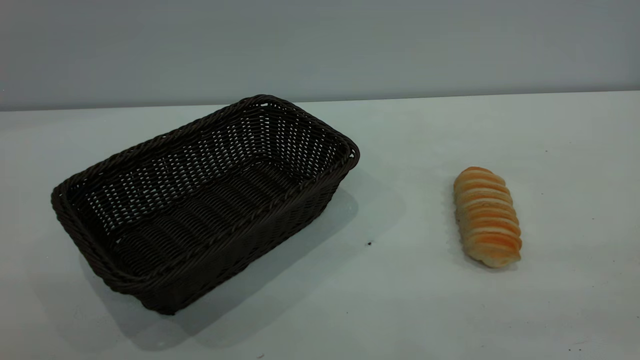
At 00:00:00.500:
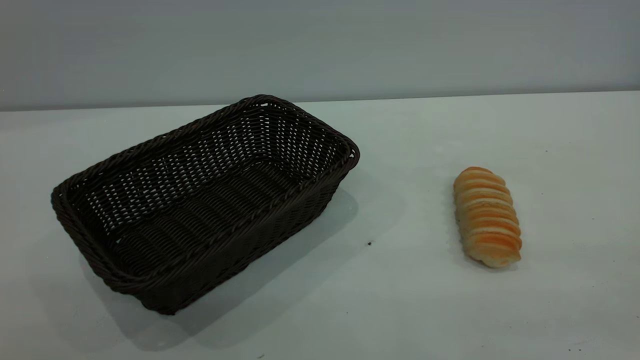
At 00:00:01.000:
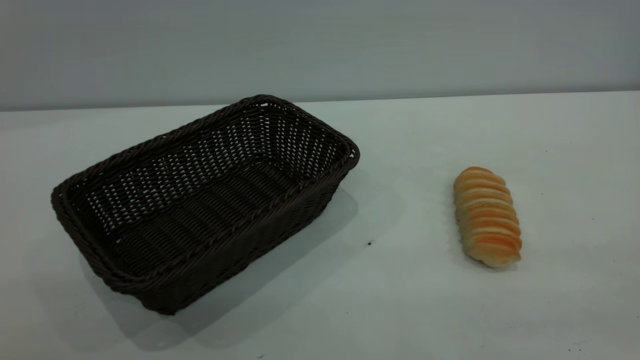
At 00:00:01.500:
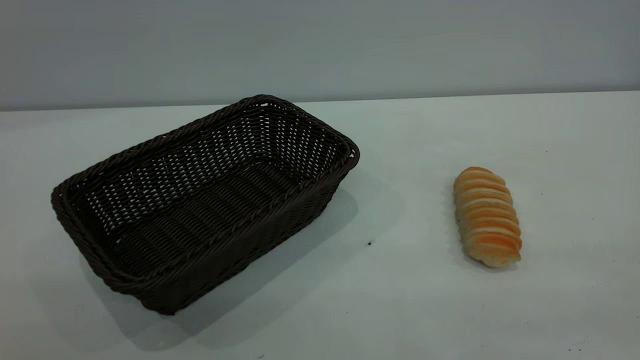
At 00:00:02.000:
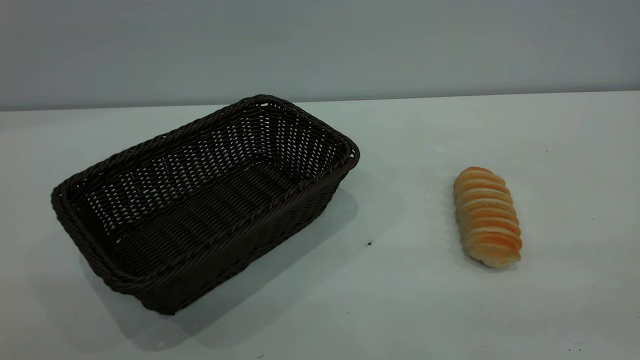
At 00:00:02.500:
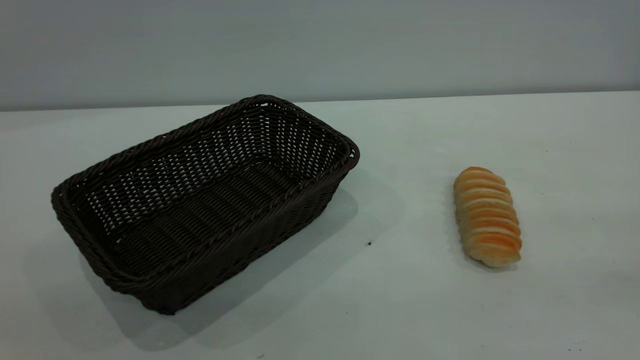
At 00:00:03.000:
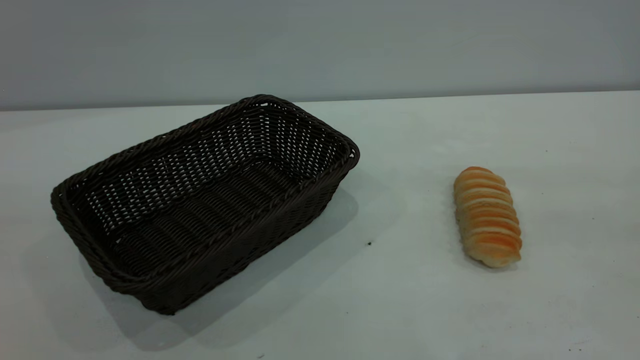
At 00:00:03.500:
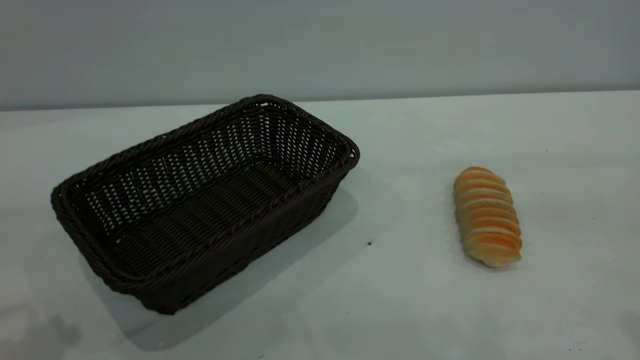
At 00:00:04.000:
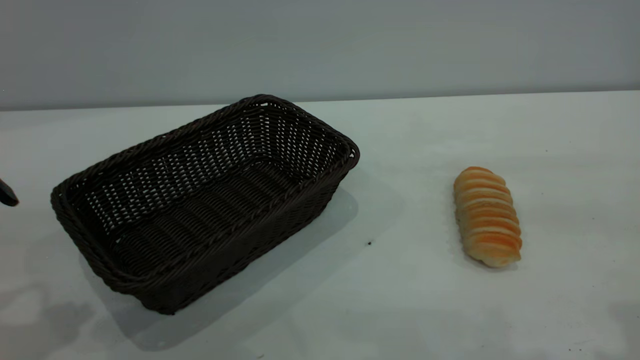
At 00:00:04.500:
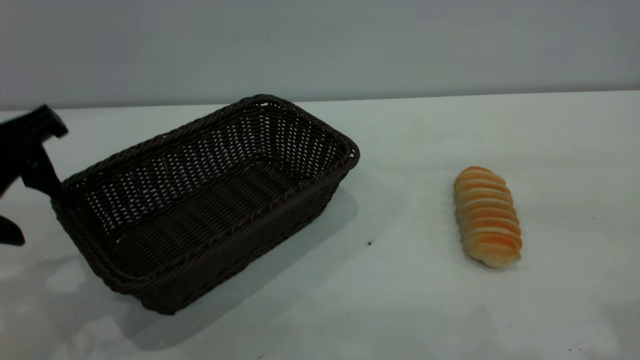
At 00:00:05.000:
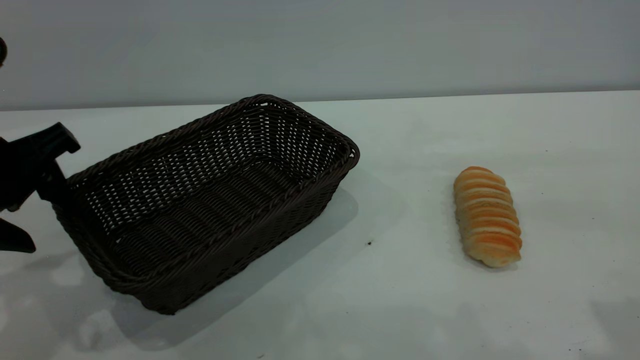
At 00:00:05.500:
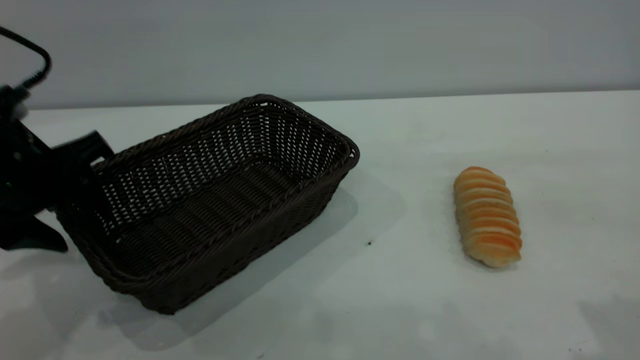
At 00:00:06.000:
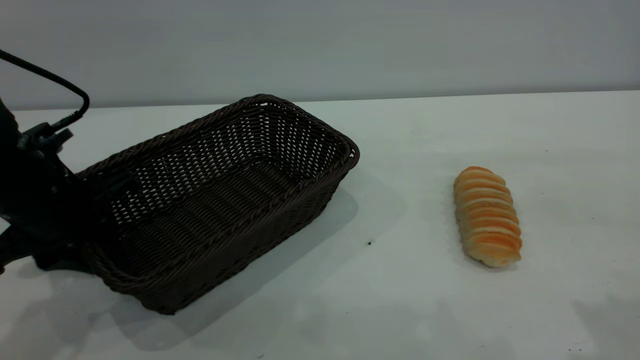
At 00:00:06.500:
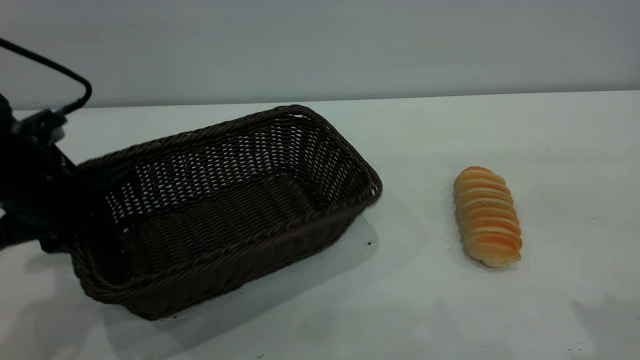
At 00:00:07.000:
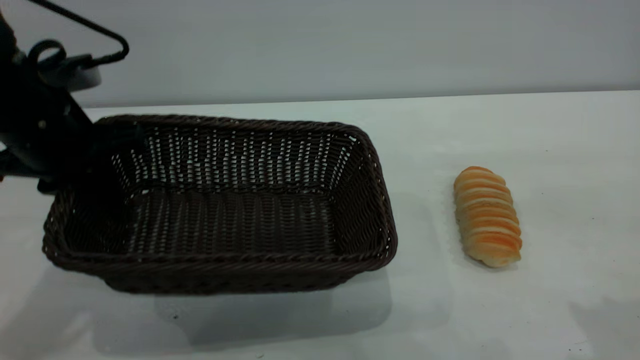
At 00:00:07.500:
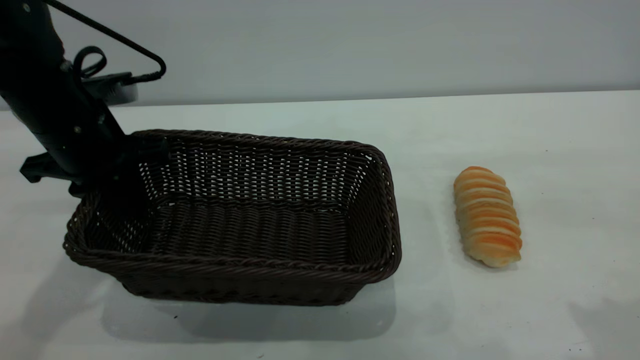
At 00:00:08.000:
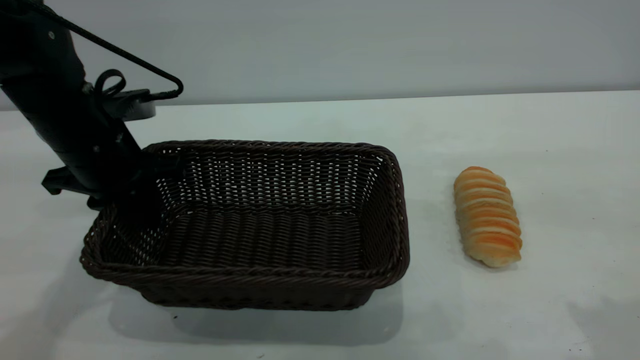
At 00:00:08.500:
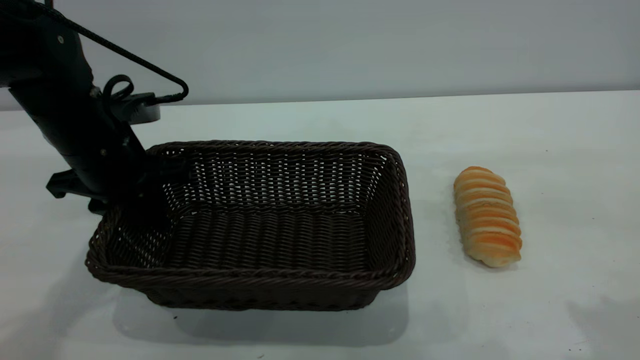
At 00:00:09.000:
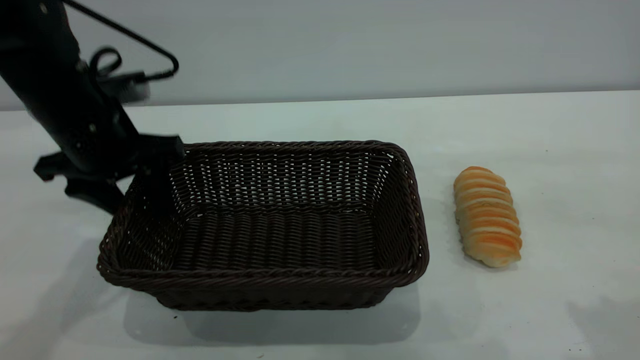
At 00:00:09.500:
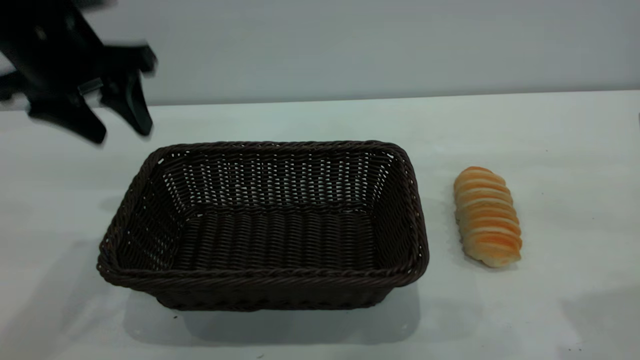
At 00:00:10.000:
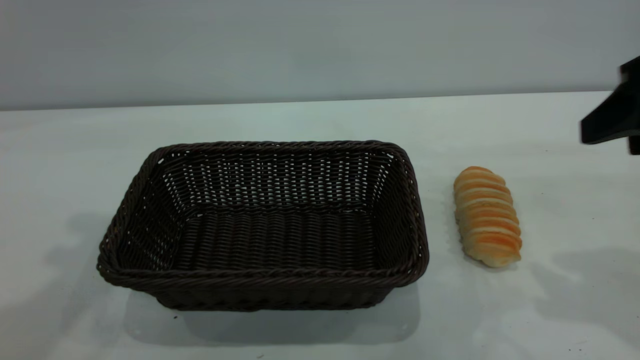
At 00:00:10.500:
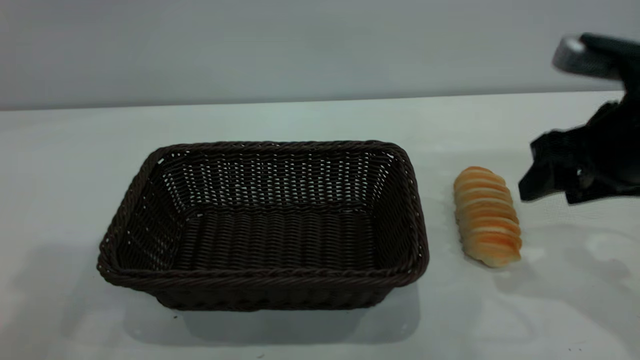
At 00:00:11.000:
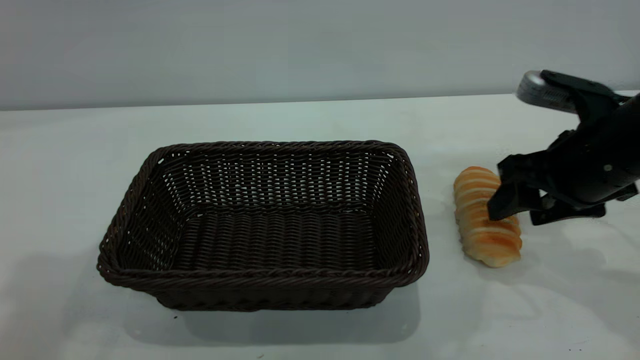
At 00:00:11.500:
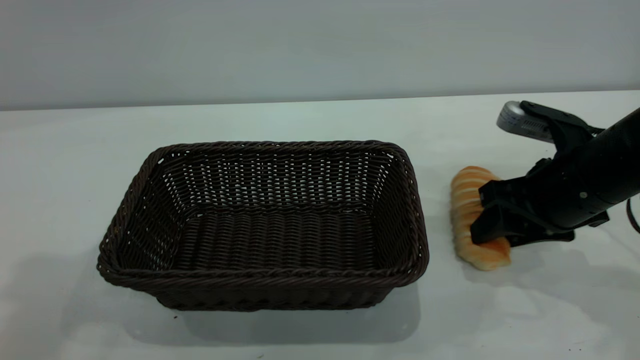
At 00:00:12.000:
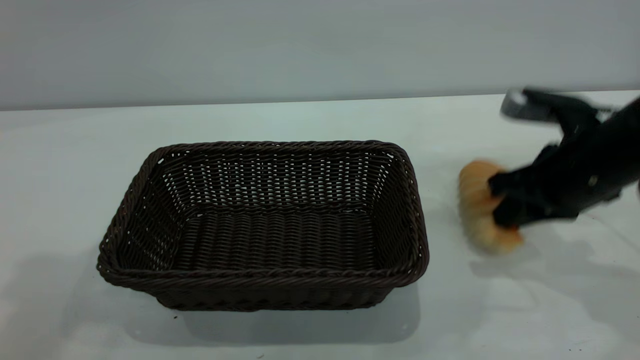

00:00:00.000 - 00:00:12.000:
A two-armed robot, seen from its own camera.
Task of the whole recording: One hand grasps the black basket and places it in the middle of the table, while the other hand picks up the long bread and puts it into the black basket.
Step, 00:00:00.000 - 00:00:09.000: Move the basket to the center of view.
00:00:04.000 - 00:00:06.000: The left gripper is displaced downward and forward by about 15 cm, and closes up.
00:00:06.000 - 00:00:08.000: The left gripper goes roughly 5 cm forward.
00:00:08.000 - 00:00:10.000: The left gripper goes approximately 25 cm upward, and opens; the right gripper shifts approximately 10 cm forward and downward, and opens its fingers.
00:00:10.000 - 00:00:12.000: The right gripper is displaced downward and forward by roughly 15 cm, and closes.

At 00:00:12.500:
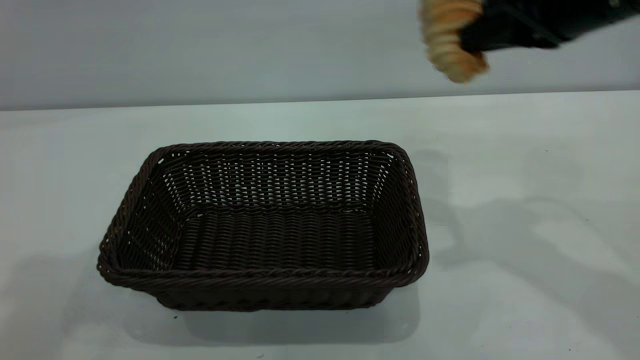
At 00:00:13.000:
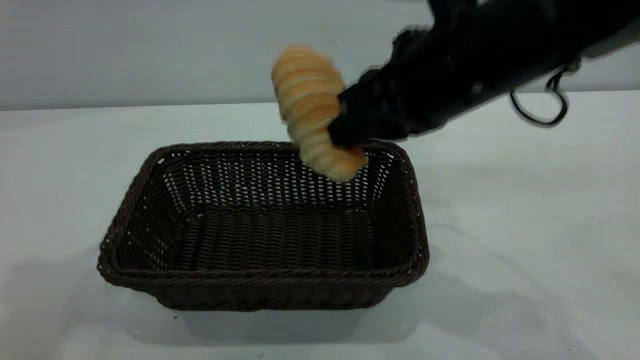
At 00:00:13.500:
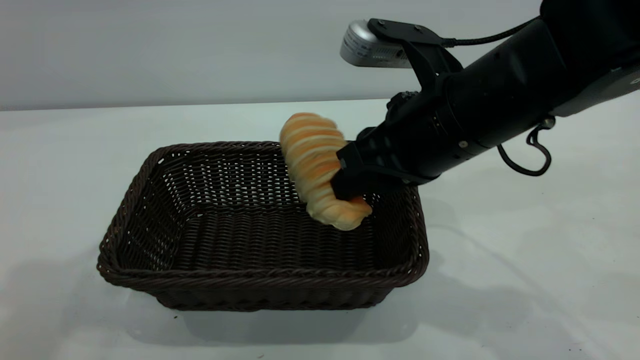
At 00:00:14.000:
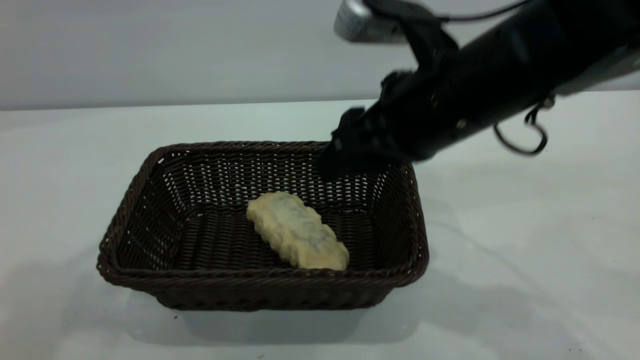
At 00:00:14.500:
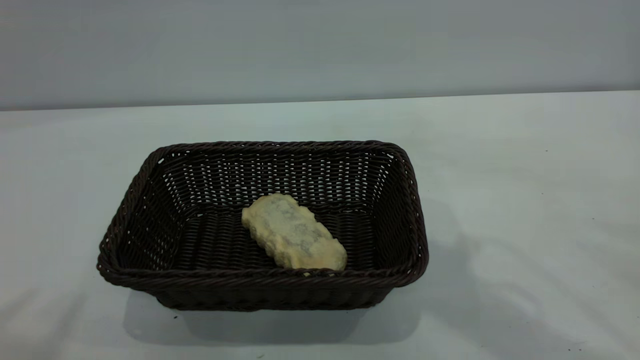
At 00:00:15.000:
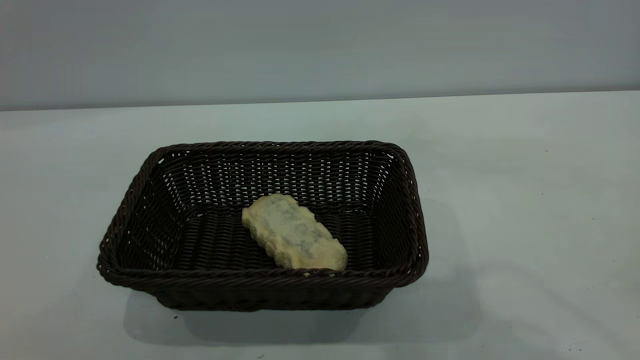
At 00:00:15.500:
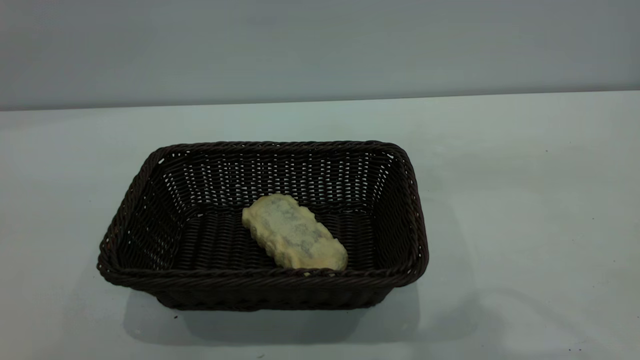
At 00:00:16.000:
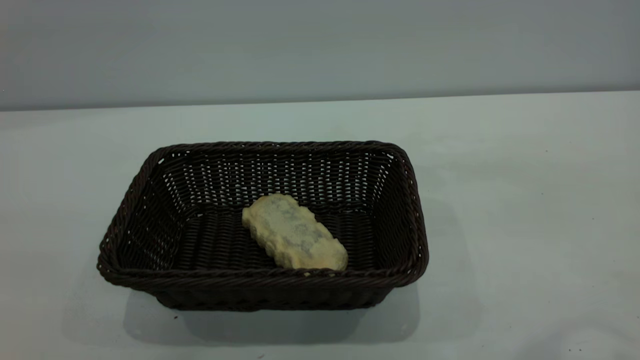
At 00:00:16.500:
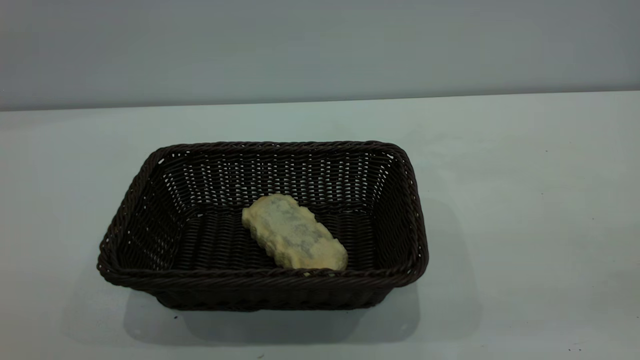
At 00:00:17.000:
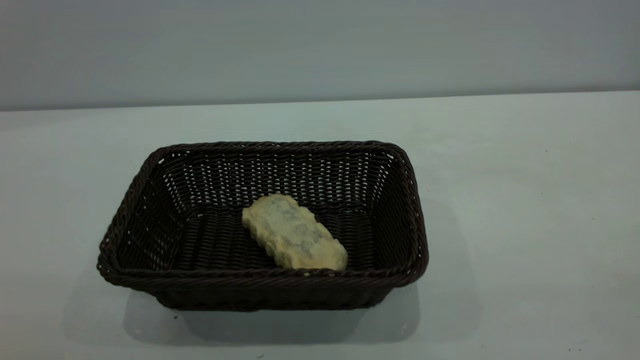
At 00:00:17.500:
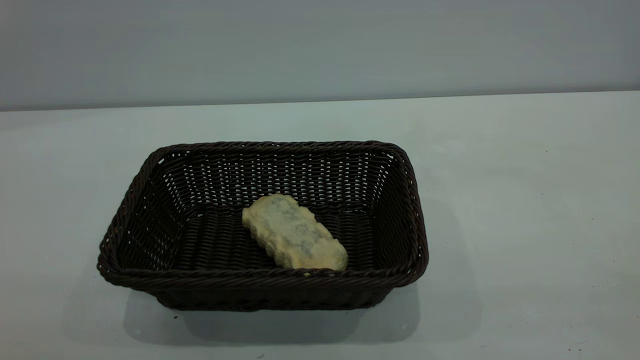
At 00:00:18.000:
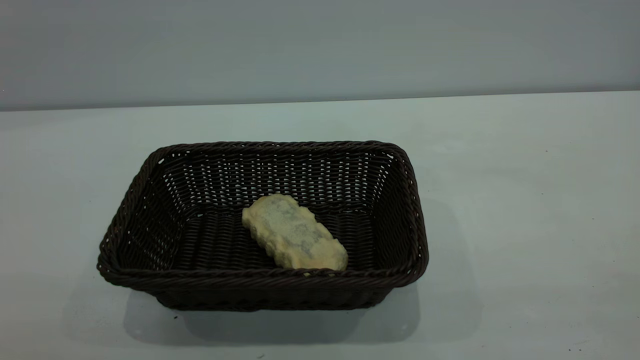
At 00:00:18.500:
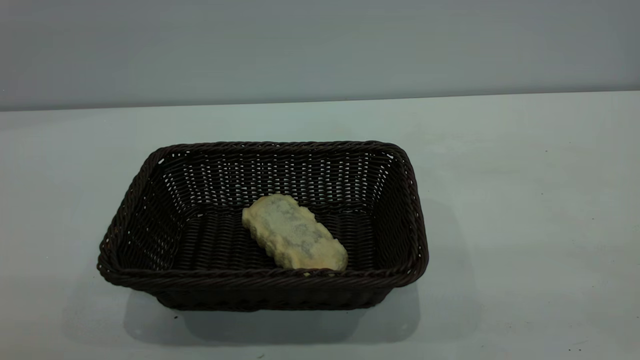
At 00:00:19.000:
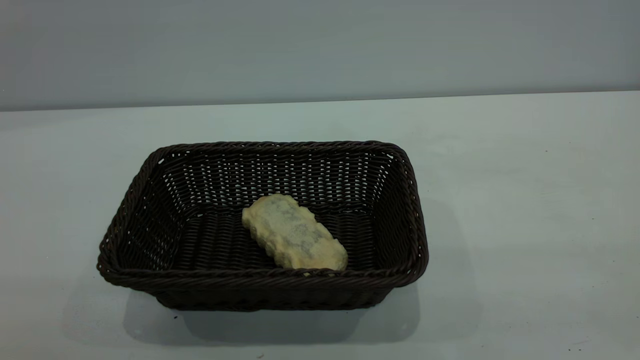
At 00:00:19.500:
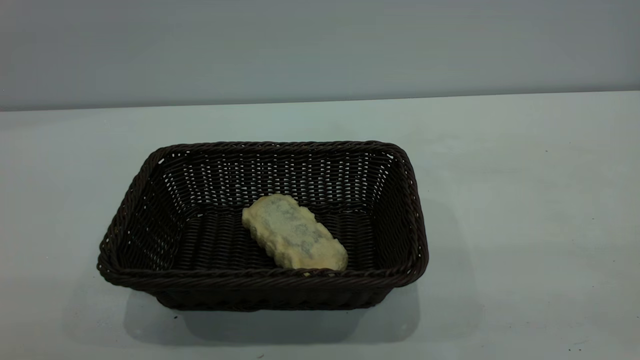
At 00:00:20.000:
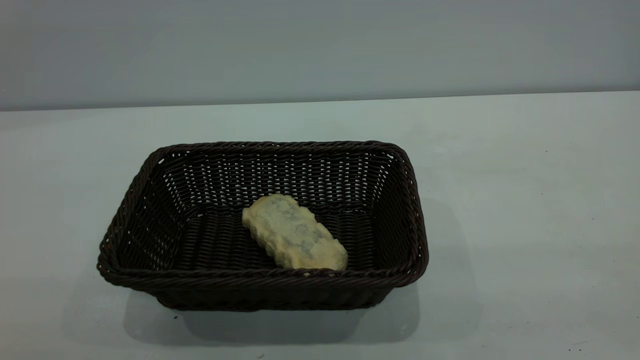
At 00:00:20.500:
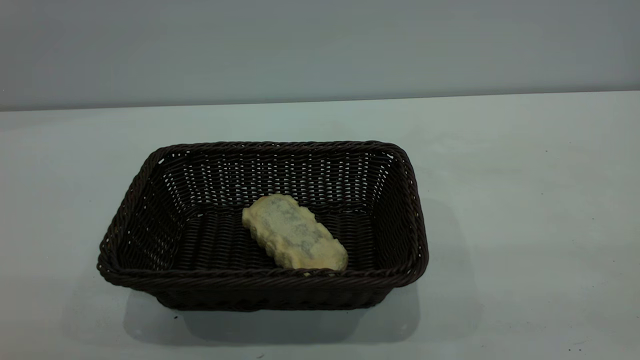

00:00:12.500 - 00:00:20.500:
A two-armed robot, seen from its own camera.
Task of the whole recording: One hand grasps the black basket and places it in the middle of the table, while the other hand picks up the long bread and puts it into the black basket.
Step, 00:00:12.500 - 00:00:14.000: place the bread into the basket.
00:00:12.500 - 00:00:14.500: The right gripper travels upward, backward and to the left by roughly 15 cm, and opens. Meanwhile the left gripper is displaced backward by some 10 cm.
00:00:18.500 - 00:00:20.500: Both grippers stay put.
